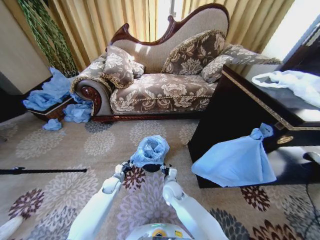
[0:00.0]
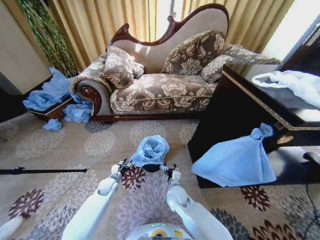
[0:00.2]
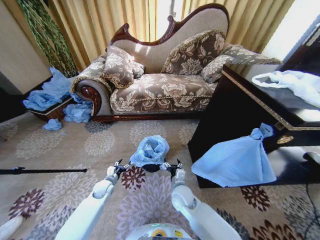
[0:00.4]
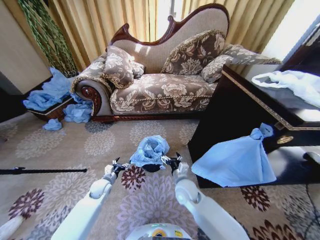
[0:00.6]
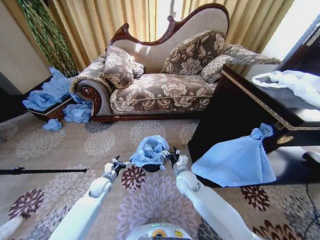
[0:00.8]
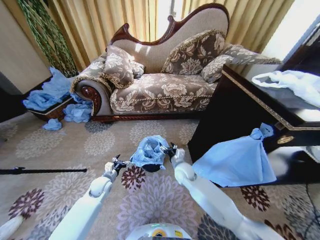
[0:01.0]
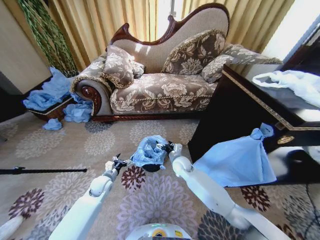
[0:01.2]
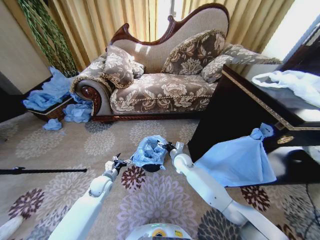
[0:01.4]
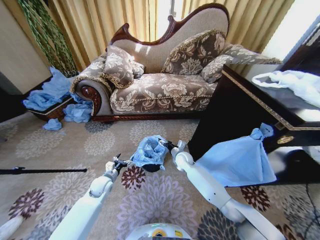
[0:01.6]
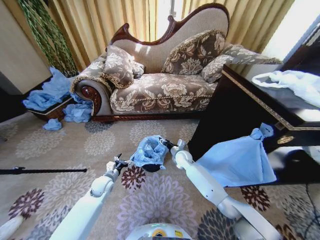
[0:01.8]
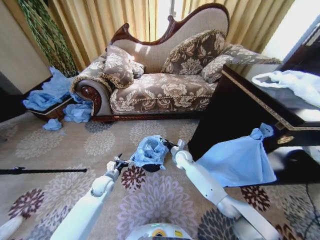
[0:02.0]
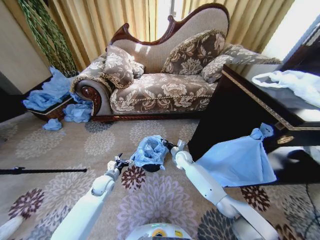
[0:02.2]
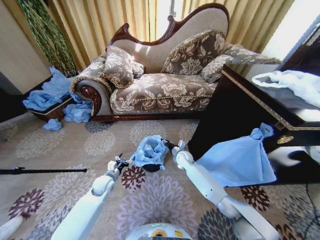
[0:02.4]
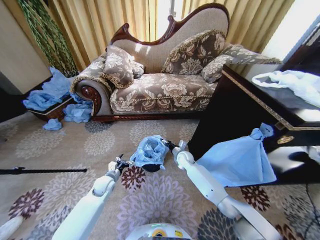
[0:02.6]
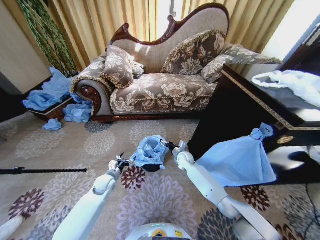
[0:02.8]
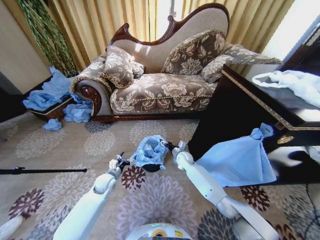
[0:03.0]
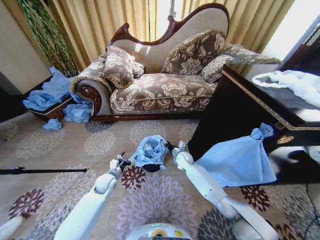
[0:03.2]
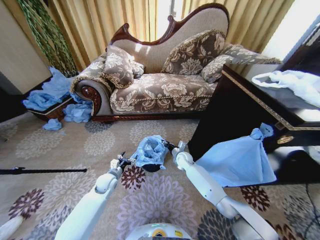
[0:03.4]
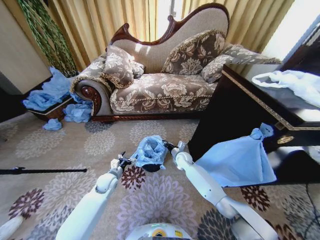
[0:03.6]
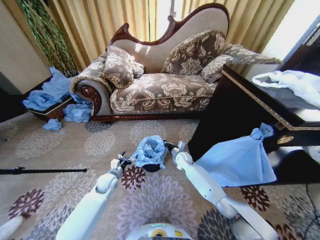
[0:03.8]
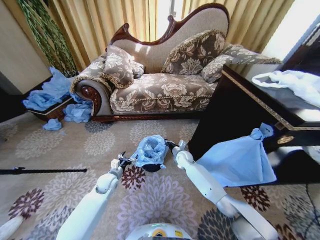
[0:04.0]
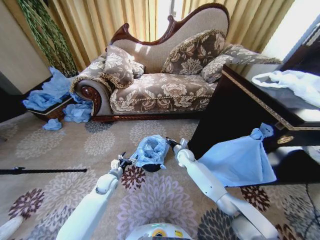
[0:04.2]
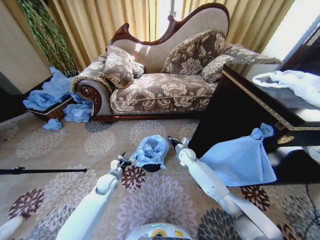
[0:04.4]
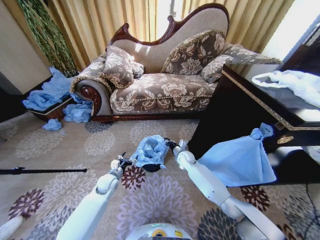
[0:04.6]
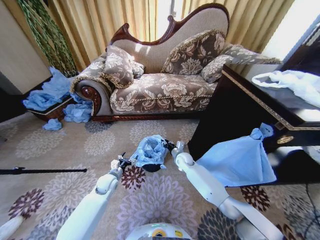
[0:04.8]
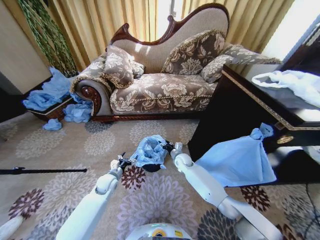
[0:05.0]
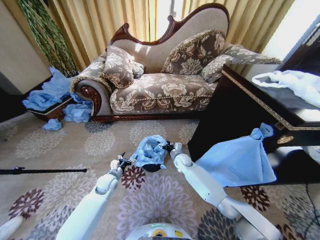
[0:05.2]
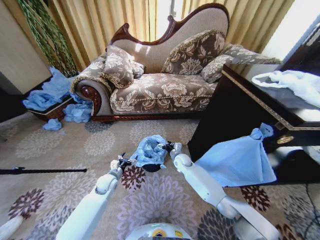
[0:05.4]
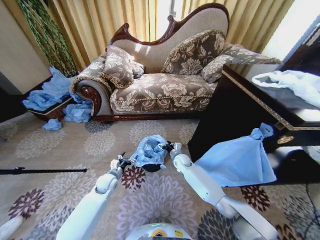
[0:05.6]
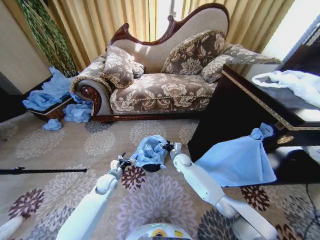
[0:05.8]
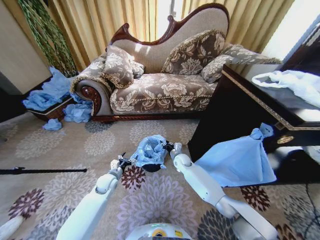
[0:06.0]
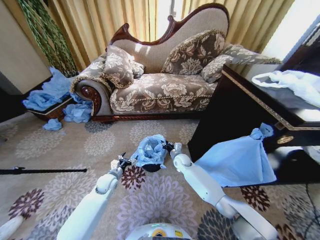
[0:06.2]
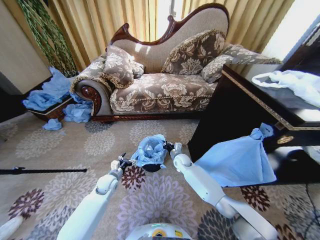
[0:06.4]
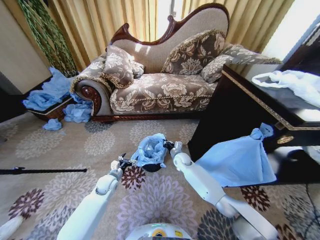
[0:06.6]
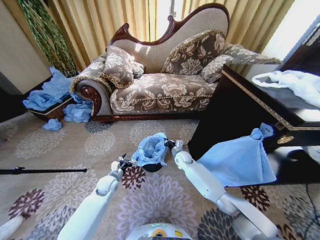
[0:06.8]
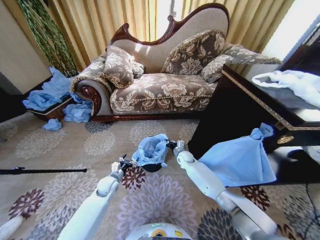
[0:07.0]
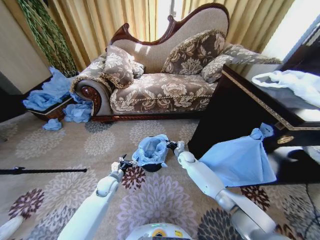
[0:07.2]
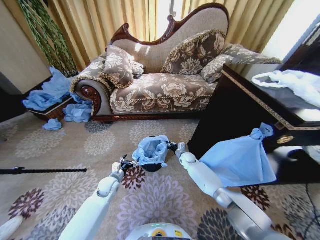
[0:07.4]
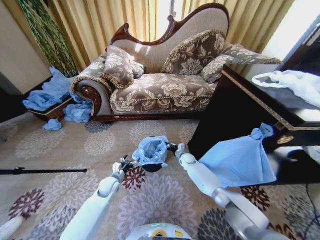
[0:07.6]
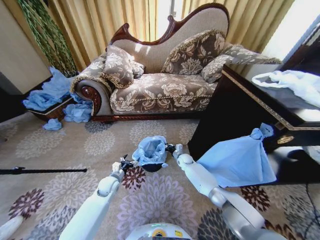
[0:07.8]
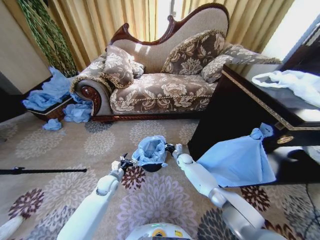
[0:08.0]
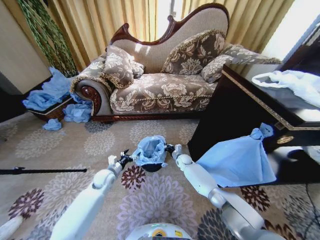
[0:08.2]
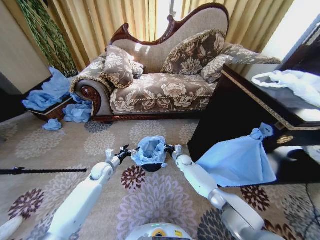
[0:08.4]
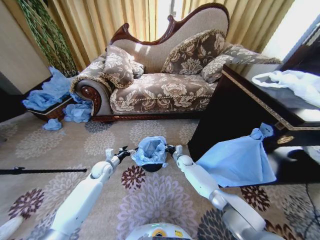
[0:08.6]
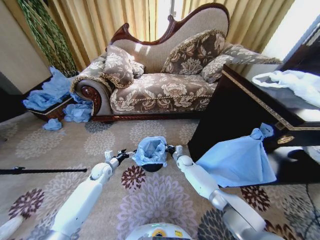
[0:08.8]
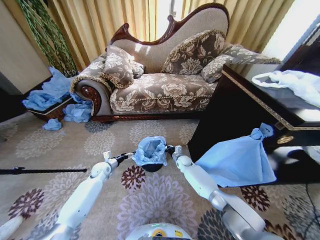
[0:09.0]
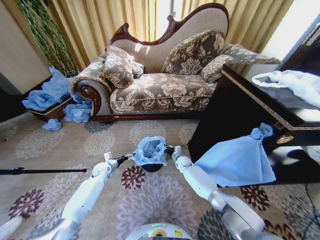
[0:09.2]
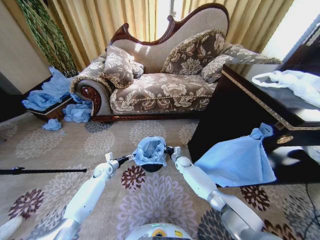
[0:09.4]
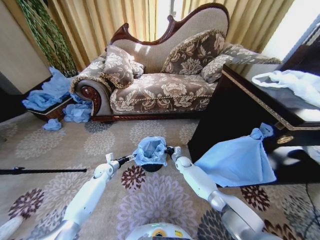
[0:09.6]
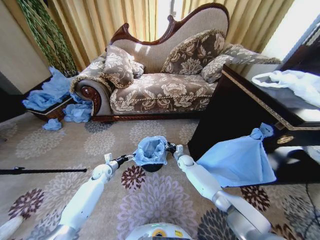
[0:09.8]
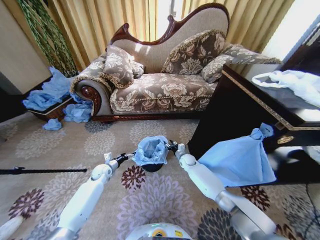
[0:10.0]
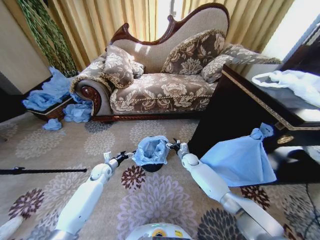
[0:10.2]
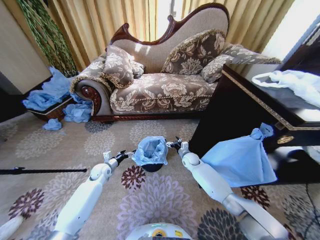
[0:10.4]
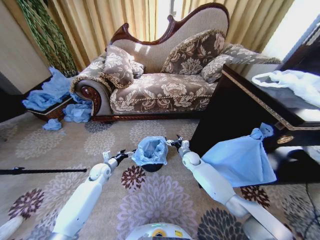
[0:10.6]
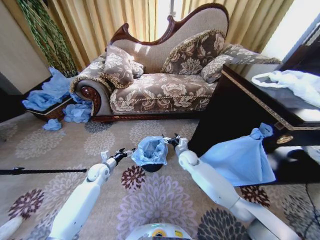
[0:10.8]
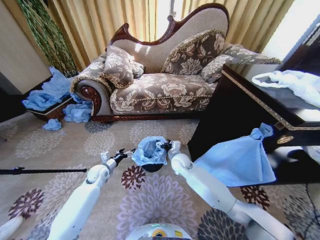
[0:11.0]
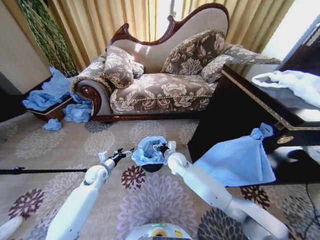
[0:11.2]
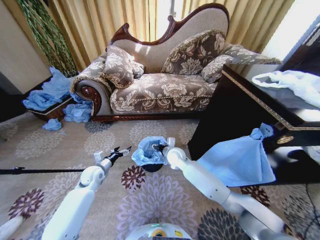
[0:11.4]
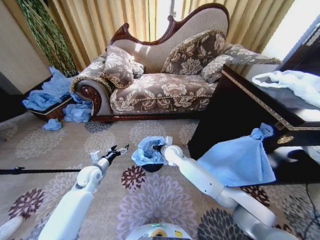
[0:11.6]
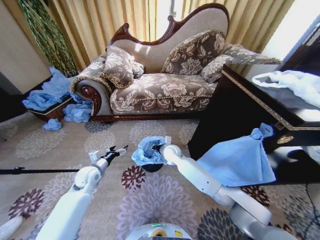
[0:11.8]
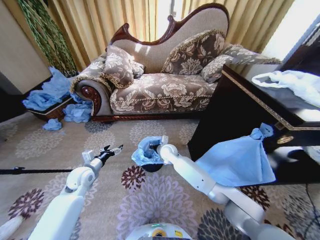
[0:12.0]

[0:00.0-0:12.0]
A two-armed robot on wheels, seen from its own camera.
Task of the whole recording: Place a garbage bag over the trash bin.
0:00.0 to 0:01.6: The left gripper moves upward, roughly 10 cm, and opens up, while the right gripper heads forward, to the right and upward, covering roughly 20 cm, and opens.
0:01.6 to 0:03.0: The right gripper closes, then opens again.
0:03.0 to 0:04.4: The right gripper closes its fingers.
0:04.4 to 0:06.0: The right gripper opens its fingers.
0:06.0 to 0:07.6: The right gripper heads to the right, covering about 5 cm, and closes up.
0:07.6 to 0:09.0: The left gripper goes roughly 10 cm forward and to the left.
0:09.0 to 0:10.4: The right gripper changes place by roughly 5 cm, and opens its fingers.
0:10.4 to 0:12.0: The right gripper heads to the left and upward, covering roughly 20 cm, and closes. Meanwhile the left gripper moves upward and backward, about 15 cm.

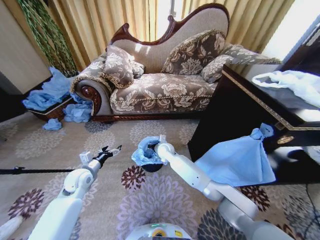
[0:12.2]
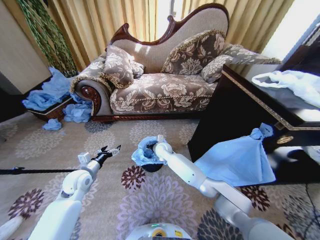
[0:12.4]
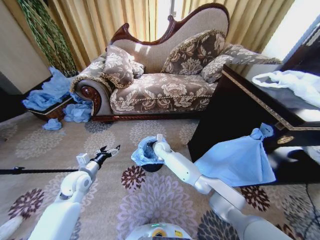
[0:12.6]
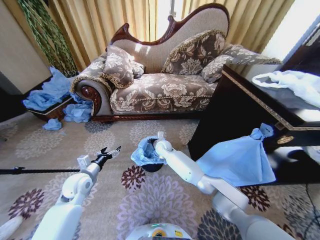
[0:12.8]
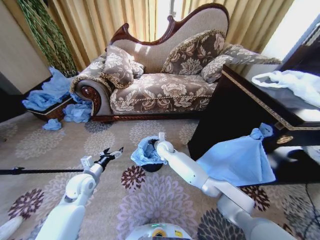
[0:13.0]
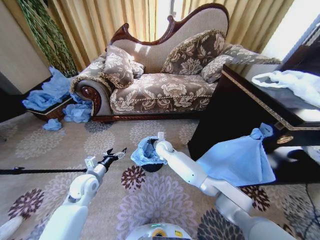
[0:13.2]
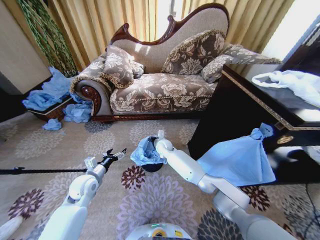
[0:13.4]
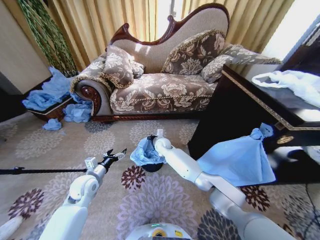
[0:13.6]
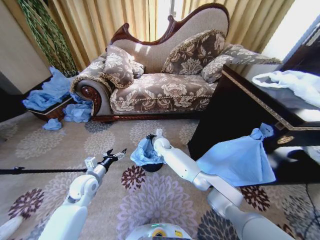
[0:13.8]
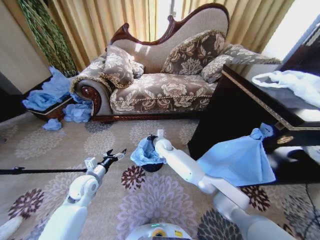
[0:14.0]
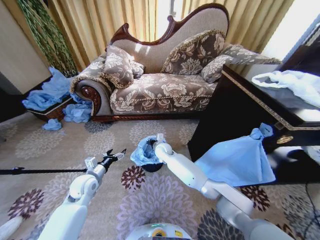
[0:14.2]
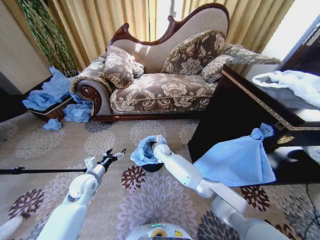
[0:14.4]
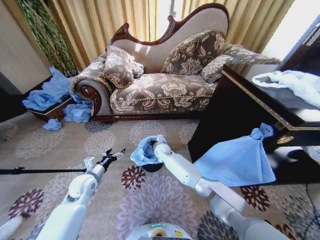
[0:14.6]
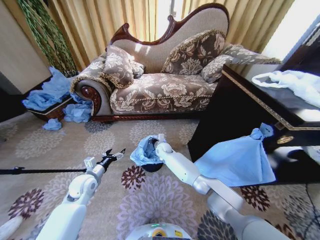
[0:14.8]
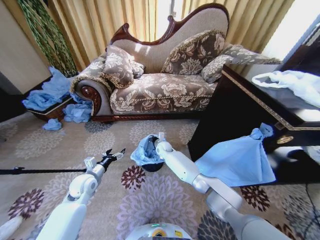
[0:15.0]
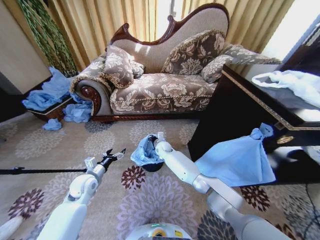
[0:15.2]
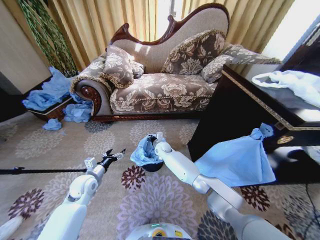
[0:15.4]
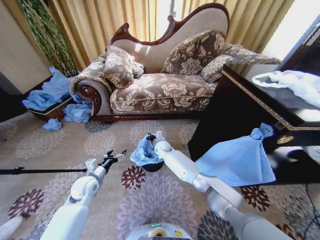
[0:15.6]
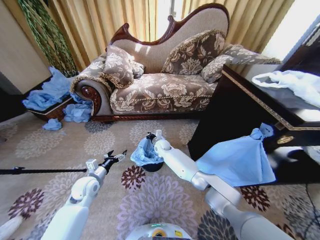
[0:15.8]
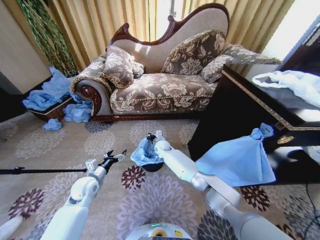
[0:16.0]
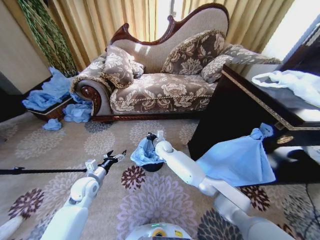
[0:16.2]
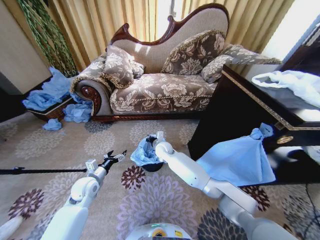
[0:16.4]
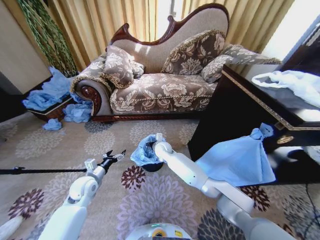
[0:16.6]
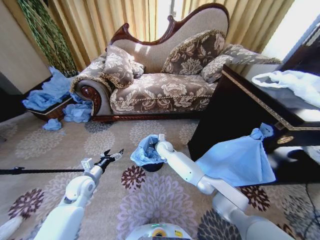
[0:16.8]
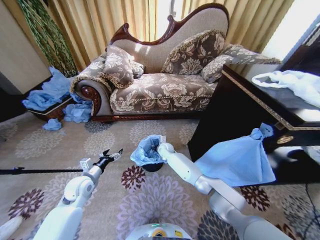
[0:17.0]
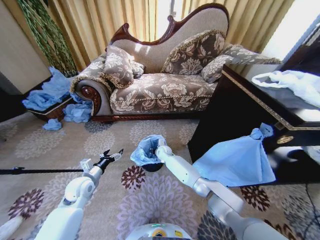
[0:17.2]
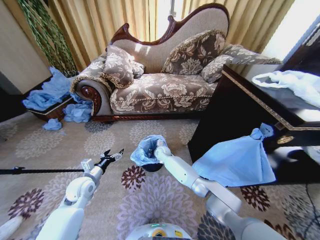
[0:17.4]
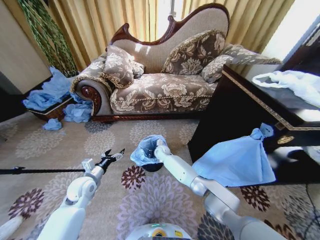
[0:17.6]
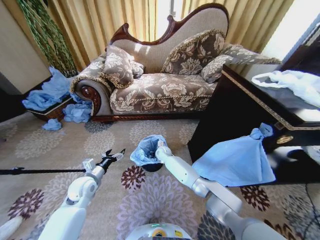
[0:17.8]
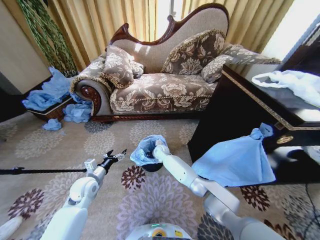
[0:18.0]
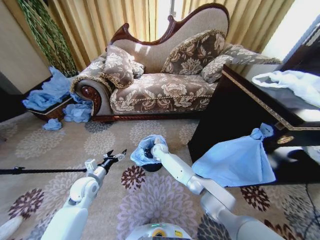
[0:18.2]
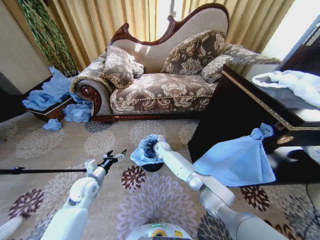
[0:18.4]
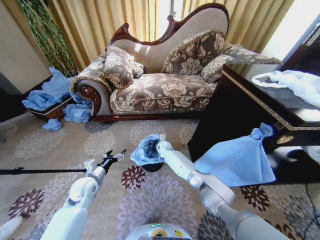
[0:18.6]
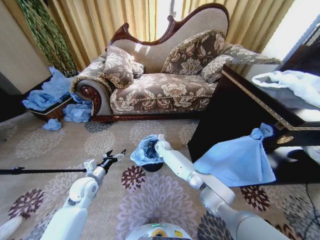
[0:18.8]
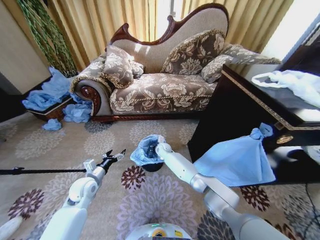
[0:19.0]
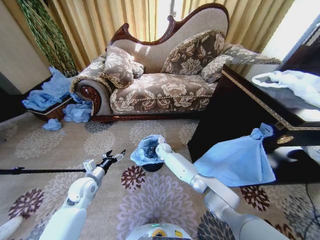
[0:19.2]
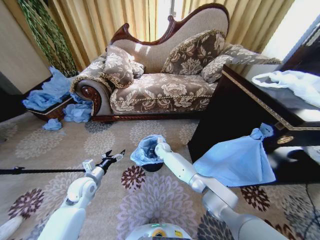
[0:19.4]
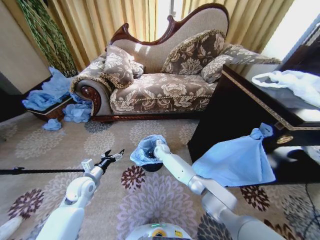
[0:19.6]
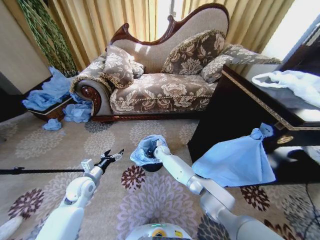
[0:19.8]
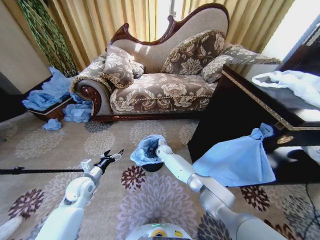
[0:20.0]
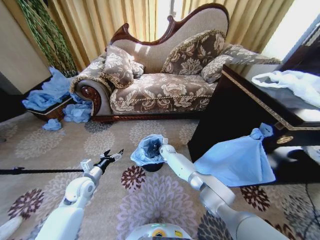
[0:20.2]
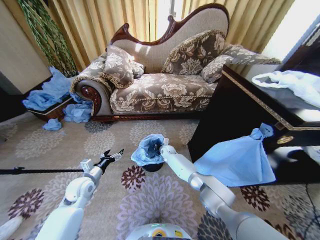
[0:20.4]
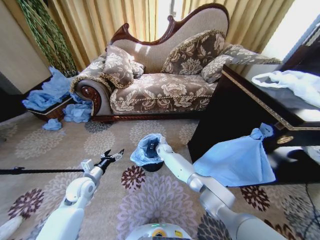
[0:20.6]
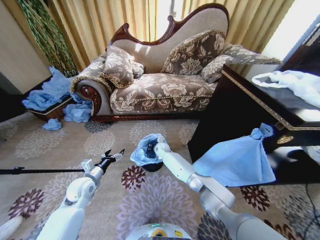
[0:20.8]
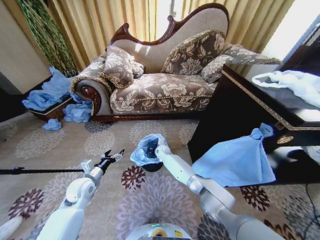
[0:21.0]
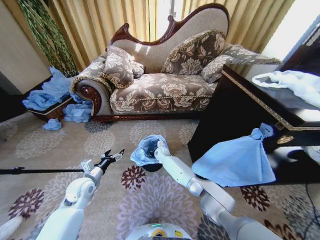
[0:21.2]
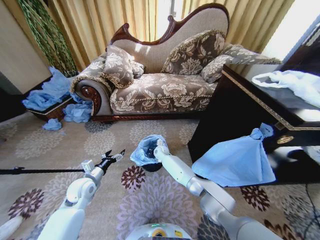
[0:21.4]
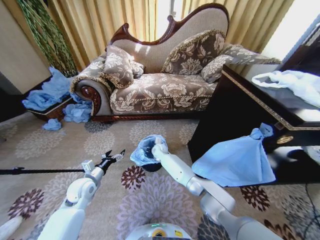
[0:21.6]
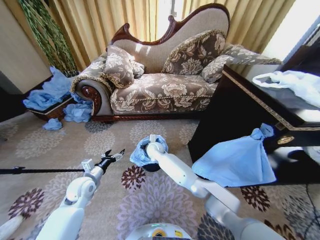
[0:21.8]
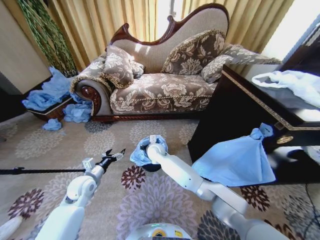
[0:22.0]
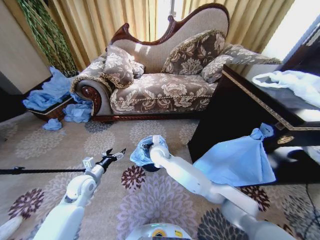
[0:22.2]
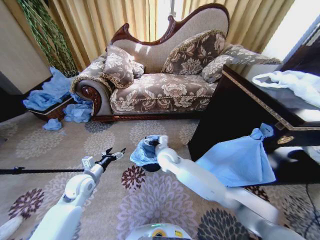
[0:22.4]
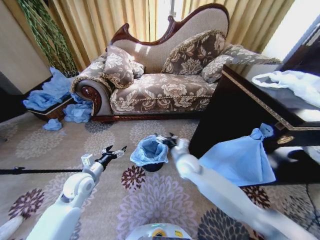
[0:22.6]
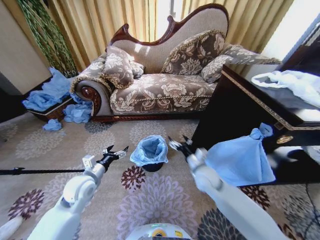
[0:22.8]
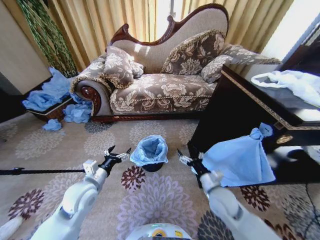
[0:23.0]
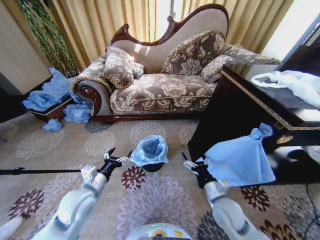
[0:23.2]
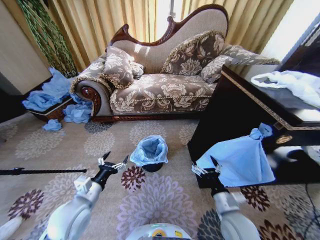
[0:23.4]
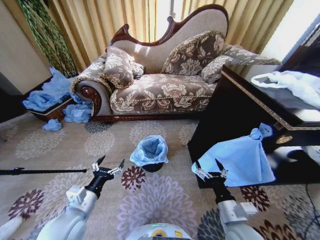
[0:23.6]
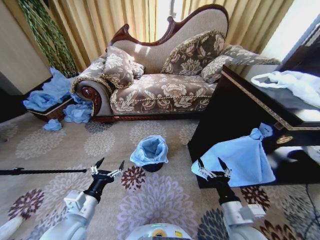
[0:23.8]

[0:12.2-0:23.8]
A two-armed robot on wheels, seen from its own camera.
Task of the whole recording: Place a garbage bag over the trash bin.
0:12.2 to 0:13.6: The grippers make only small movements.
0:13.6 to 0:15.0: The grippers make only small movements.
0:15.0 to 0:16.6: The right gripper ends up about 5 cm from where it was.
0:16.6 to 0:18.0: The right gripper goes about 5 cm downward.
0:18.0 to 0:19.4: The grippers stay close to where they were, moving slightly.
0:21.0 to 0:22.4: The right gripper heads backward and upward, covering approximately 20 cm, and opens.
0:22.4 to 0:23.8: The right gripper moves backward and to the right, about 35 cm. The left gripper heads backward, to the right and upward, covering roughly 20 cm.
